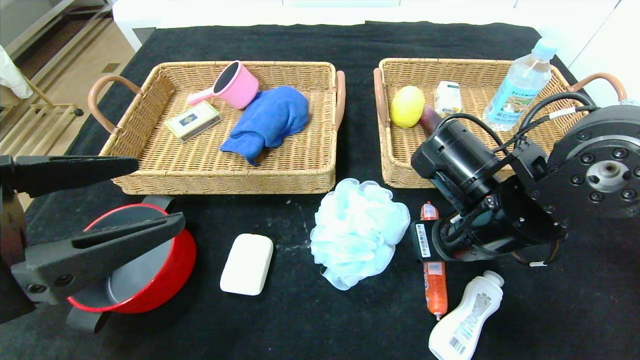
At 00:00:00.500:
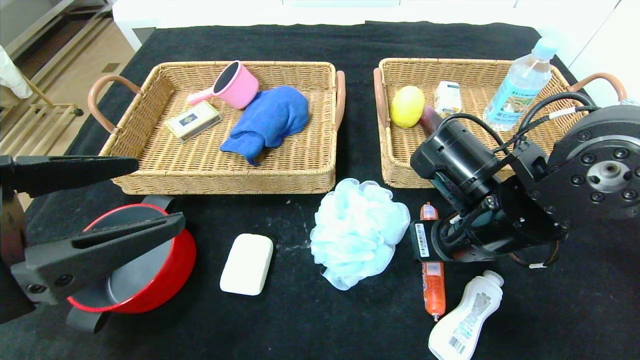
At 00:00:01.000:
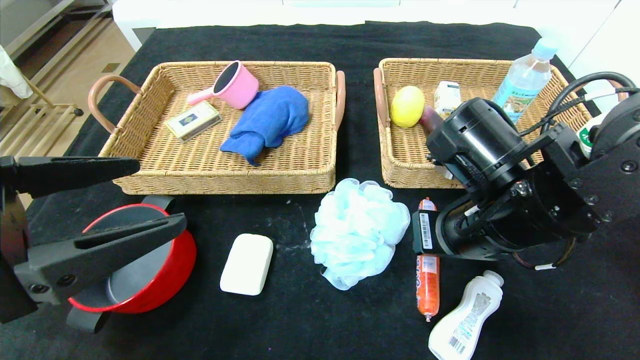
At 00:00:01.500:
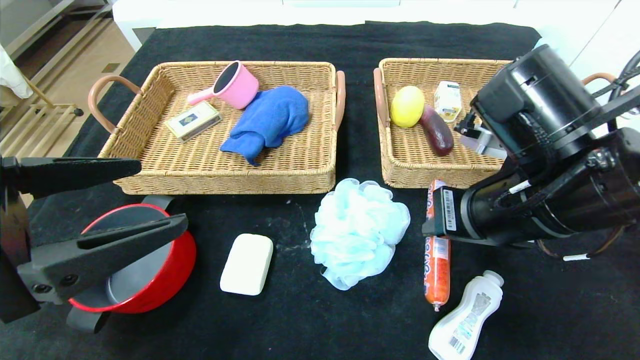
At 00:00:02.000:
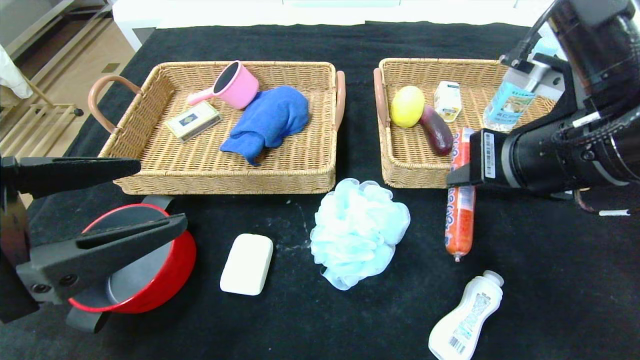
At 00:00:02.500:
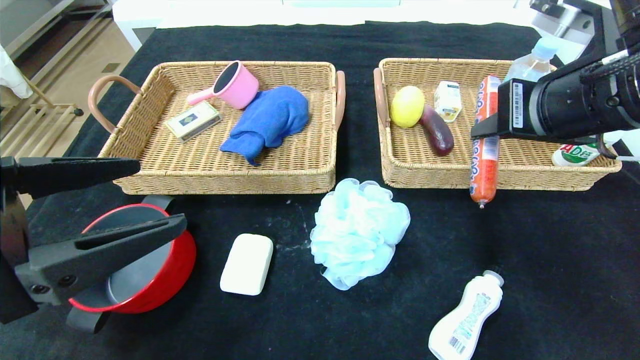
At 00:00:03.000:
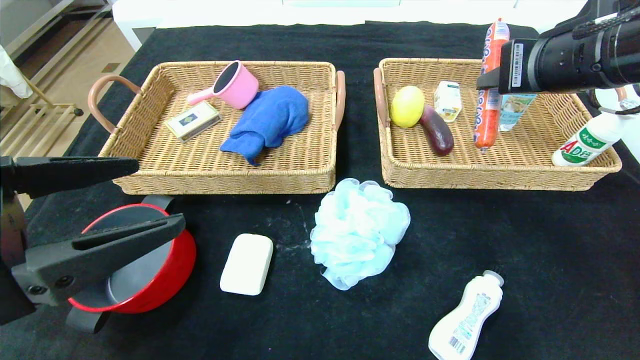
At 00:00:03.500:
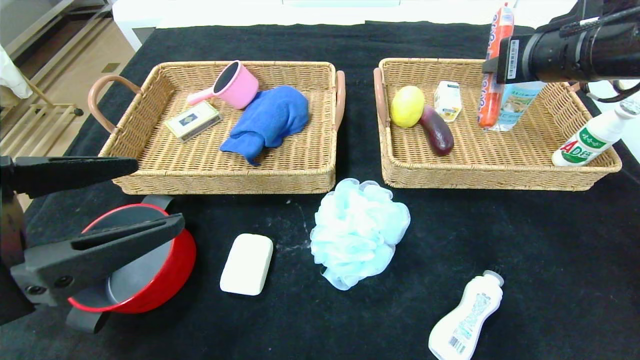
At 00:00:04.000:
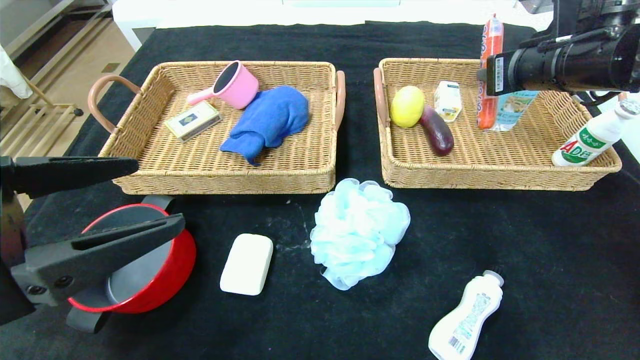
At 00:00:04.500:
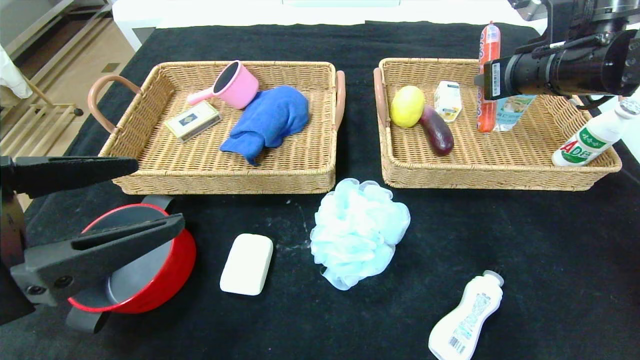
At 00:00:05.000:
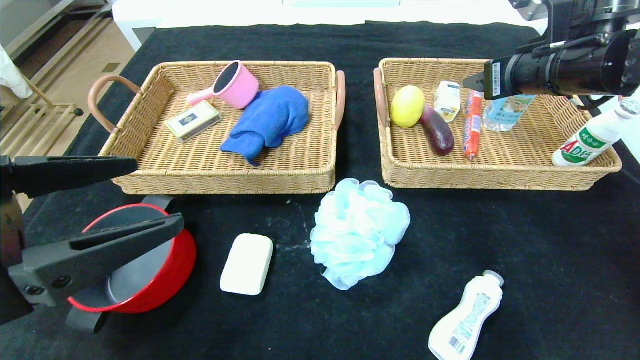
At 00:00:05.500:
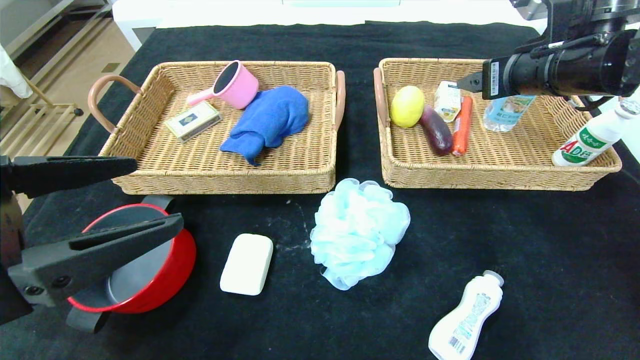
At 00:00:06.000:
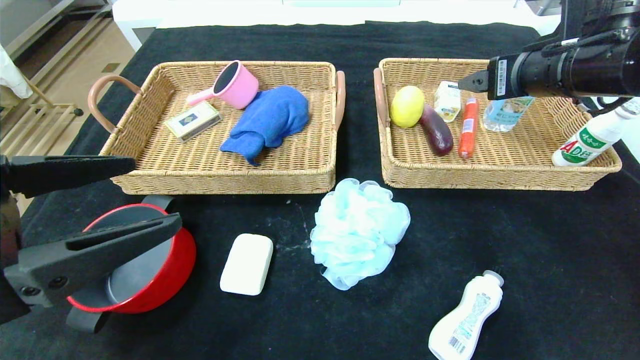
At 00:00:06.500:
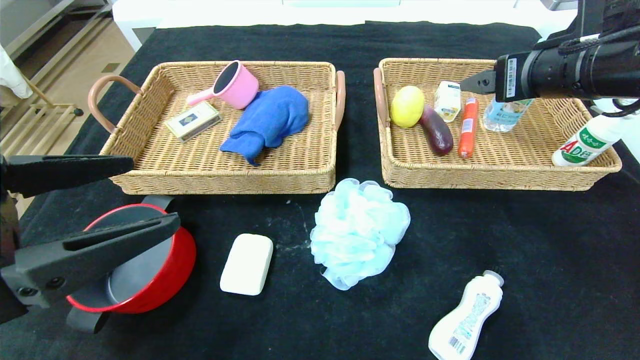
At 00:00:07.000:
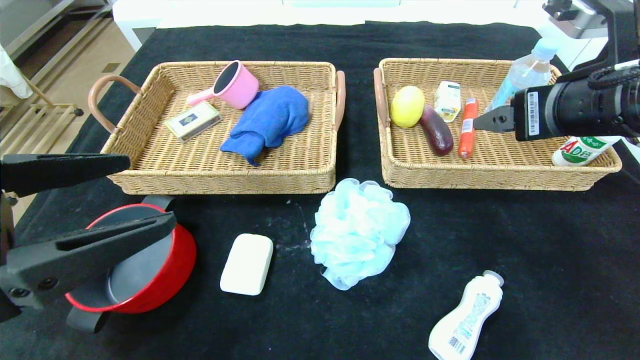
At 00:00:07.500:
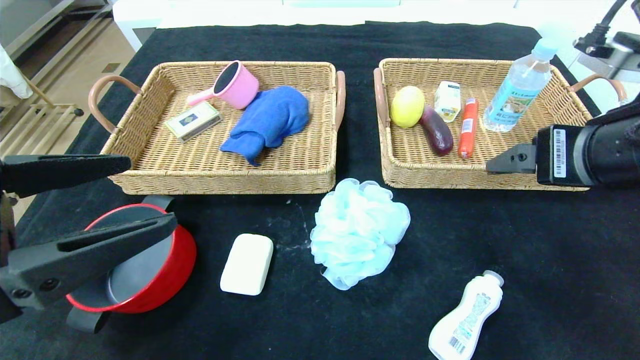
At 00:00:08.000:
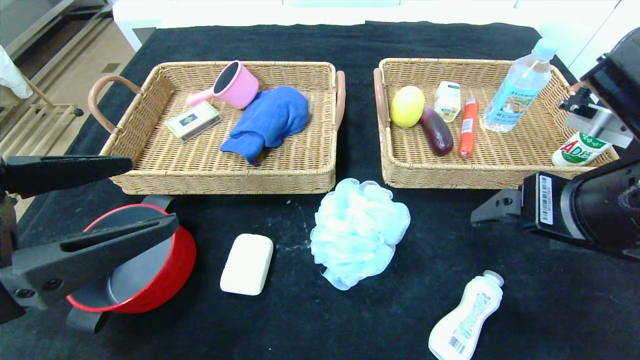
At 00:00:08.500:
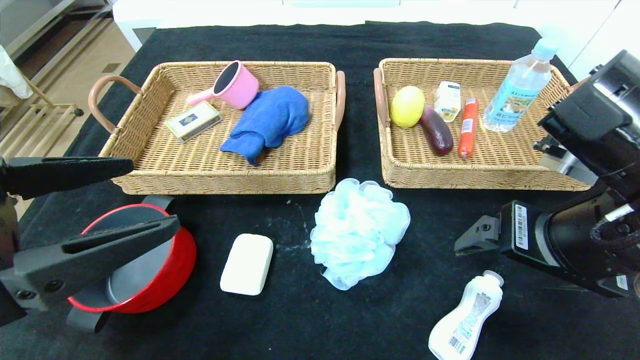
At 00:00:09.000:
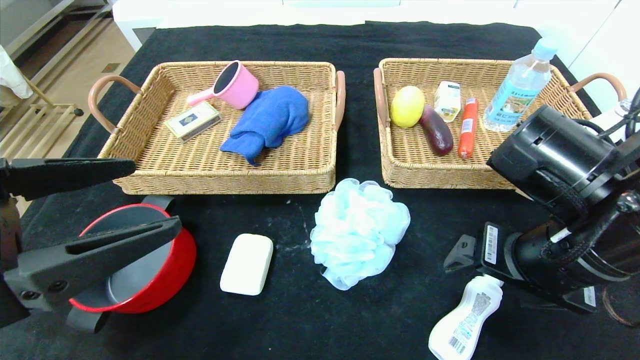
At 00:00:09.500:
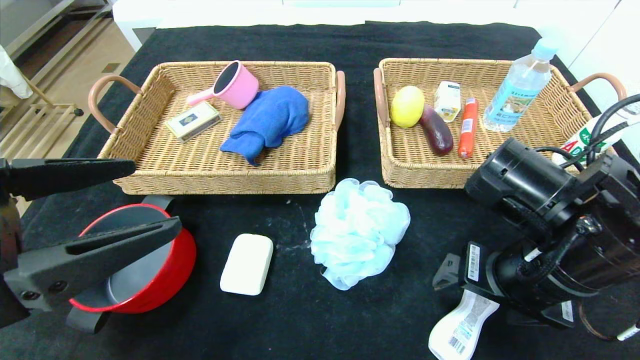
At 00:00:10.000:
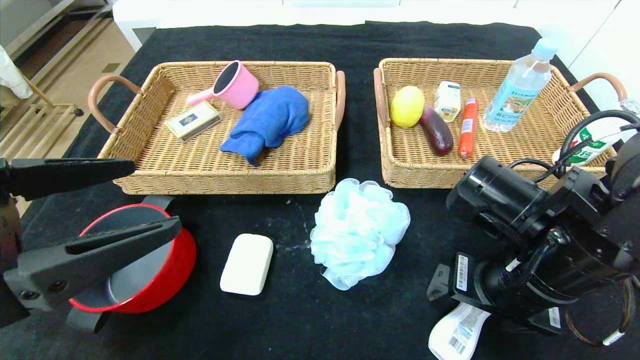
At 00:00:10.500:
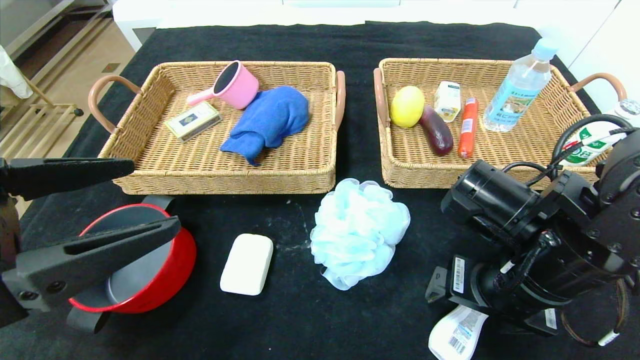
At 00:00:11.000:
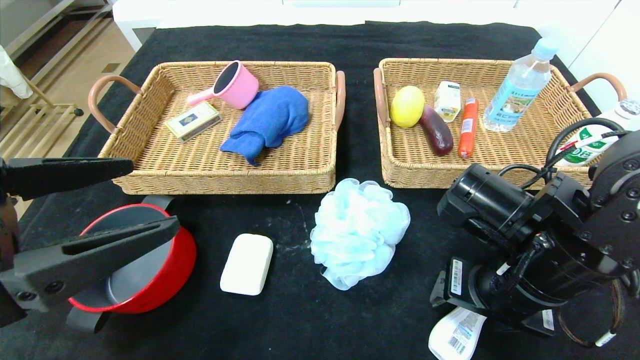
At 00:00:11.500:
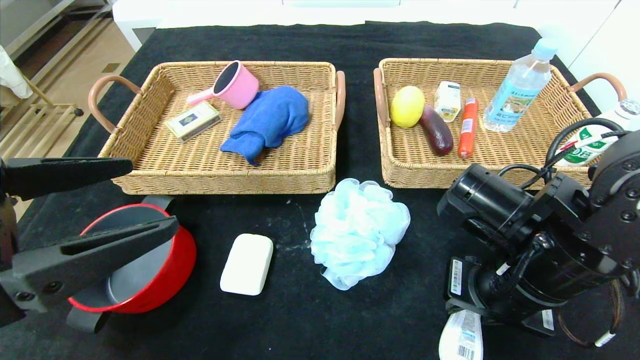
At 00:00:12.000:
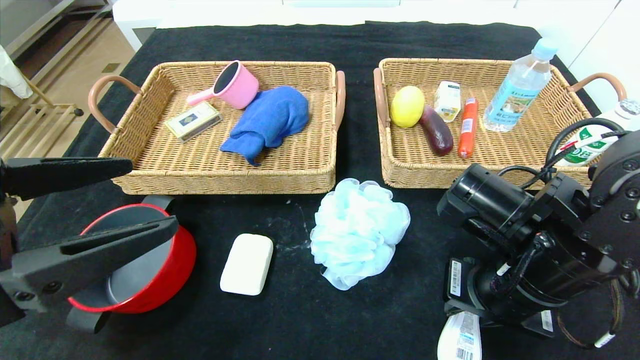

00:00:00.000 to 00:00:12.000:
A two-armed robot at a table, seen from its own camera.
Step, 00:00:00.000 to 00:00:04.500: Grasp the sausage and put it in the right basket.
00:00:00.000 to 00:00:02.000: The right gripper travels upward by some 10 cm.
00:00:02.000 to 00:00:04.000: The right gripper shifts roughly 15 cm forward and to the right.
00:00:04.000 to 00:00:06.000: The right gripper opens up.
00:00:06.000 to 00:00:08.000: The right gripper is displaced backward by roughly 15 cm.
00:00:08.000 to 00:00:10.000: The right gripper is displaced downward by about 10 cm.
00:00:10.000 to 00:00:12.000: The right gripper closes its fingers.

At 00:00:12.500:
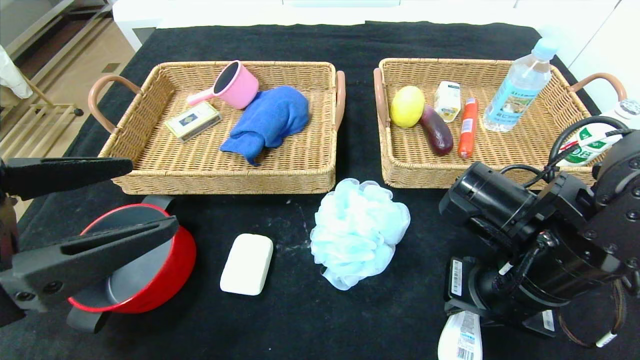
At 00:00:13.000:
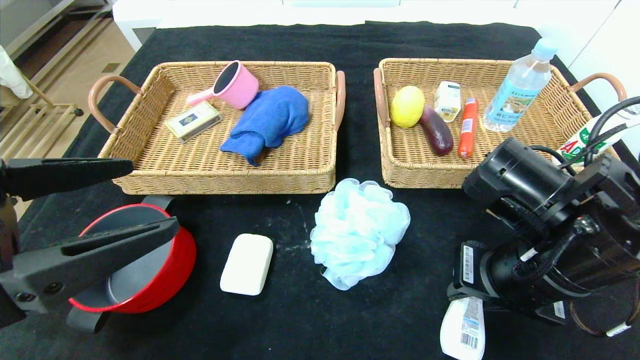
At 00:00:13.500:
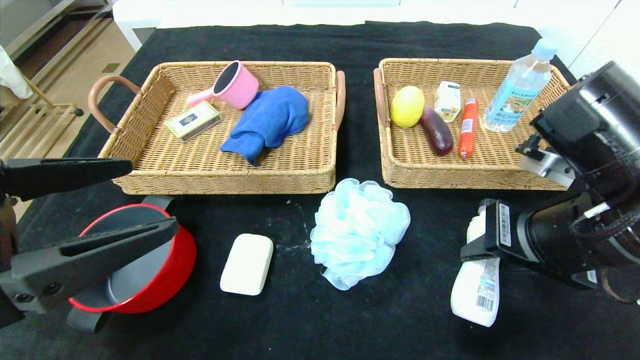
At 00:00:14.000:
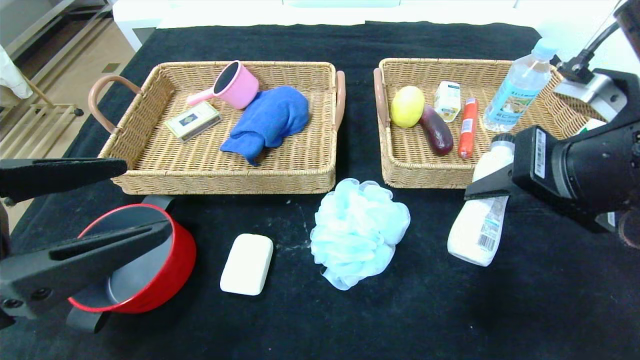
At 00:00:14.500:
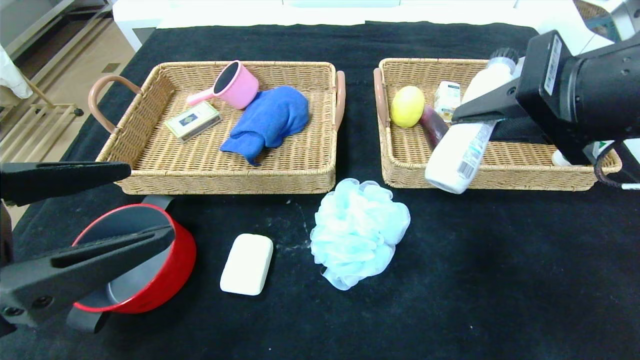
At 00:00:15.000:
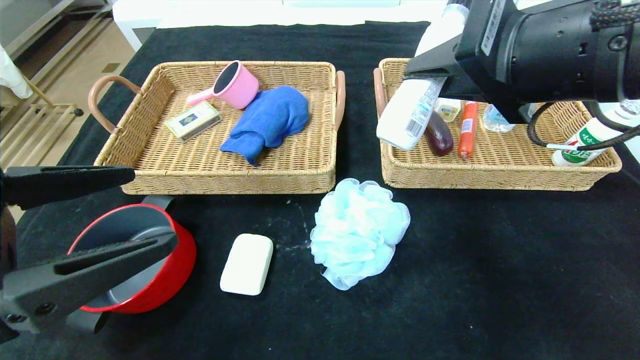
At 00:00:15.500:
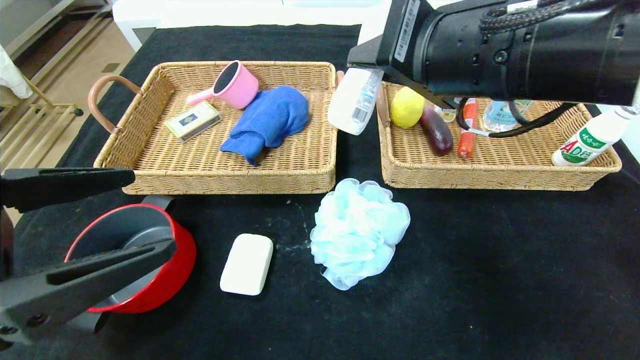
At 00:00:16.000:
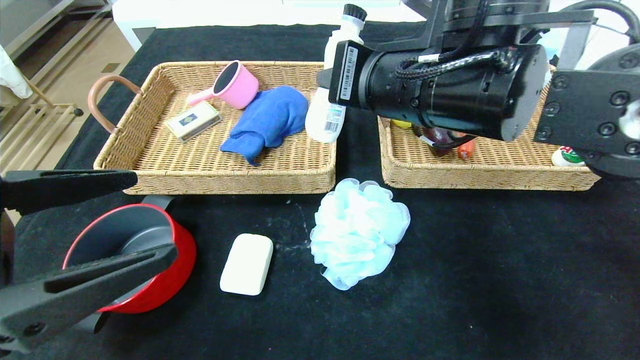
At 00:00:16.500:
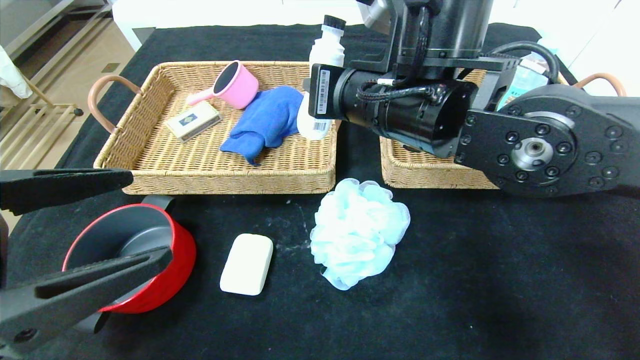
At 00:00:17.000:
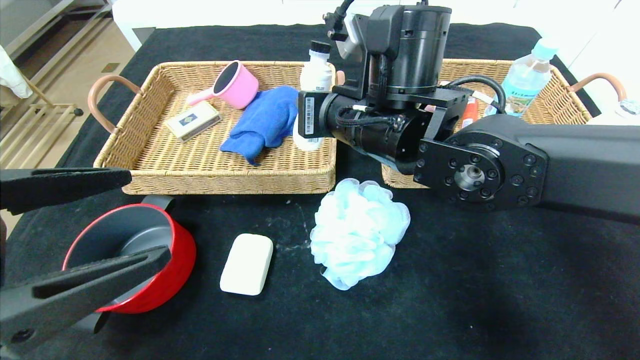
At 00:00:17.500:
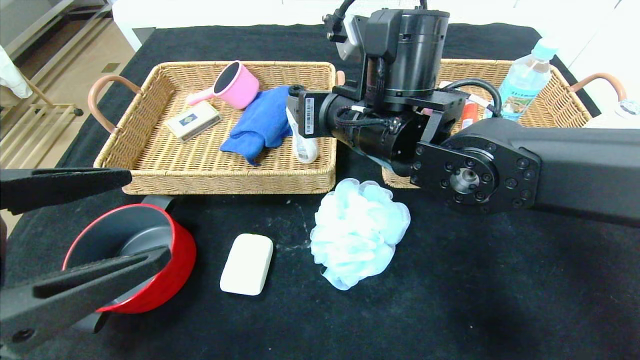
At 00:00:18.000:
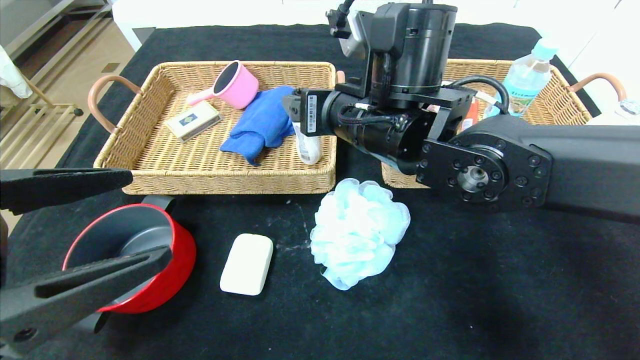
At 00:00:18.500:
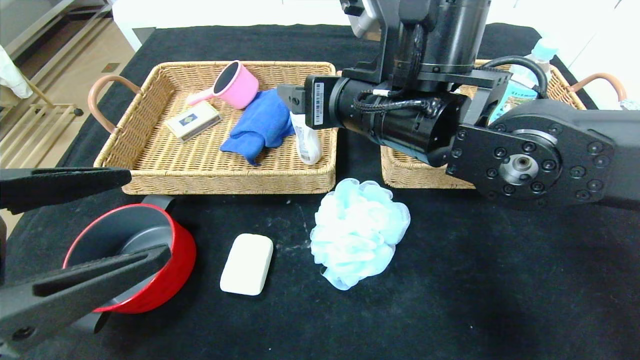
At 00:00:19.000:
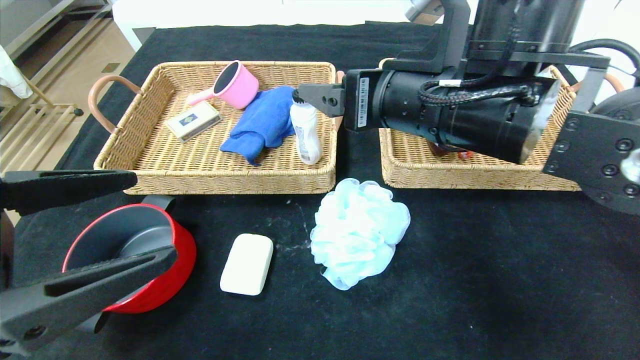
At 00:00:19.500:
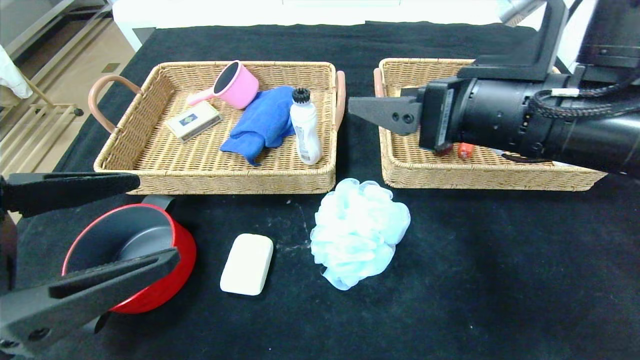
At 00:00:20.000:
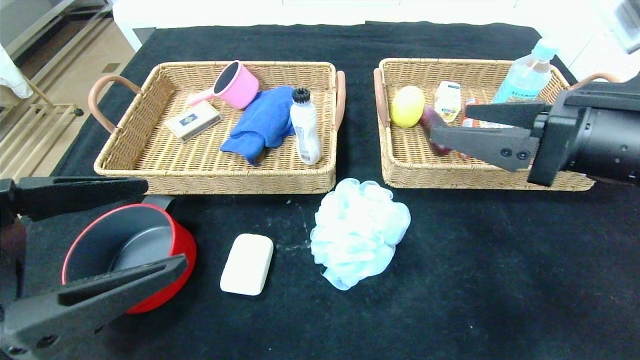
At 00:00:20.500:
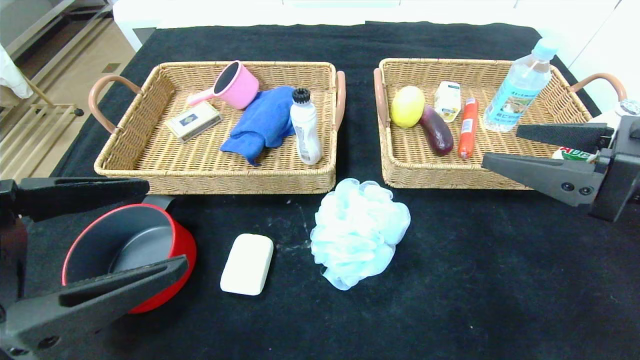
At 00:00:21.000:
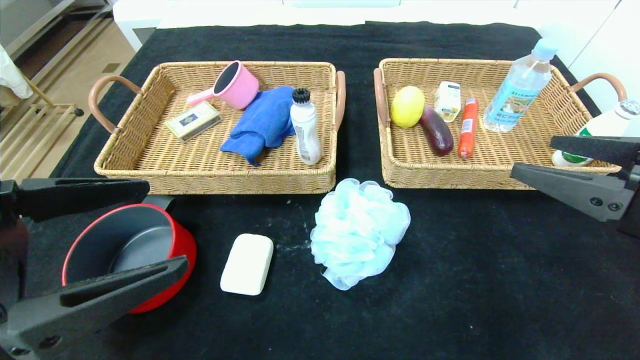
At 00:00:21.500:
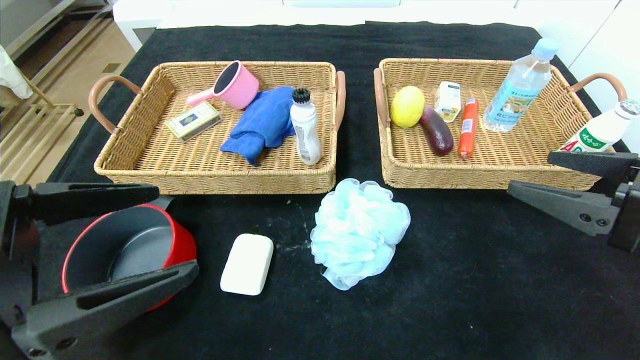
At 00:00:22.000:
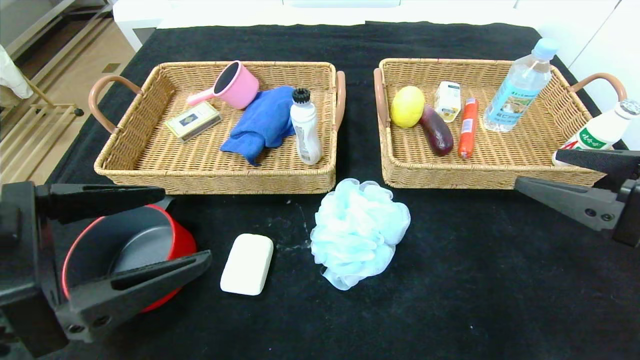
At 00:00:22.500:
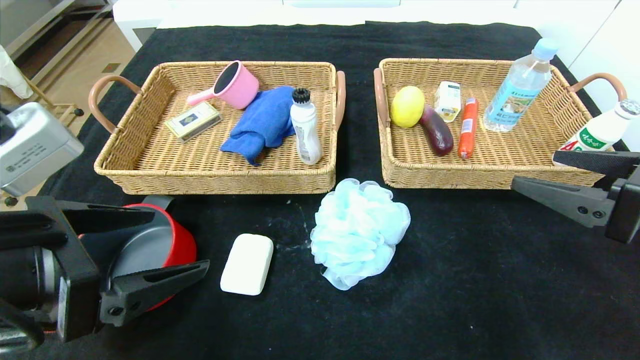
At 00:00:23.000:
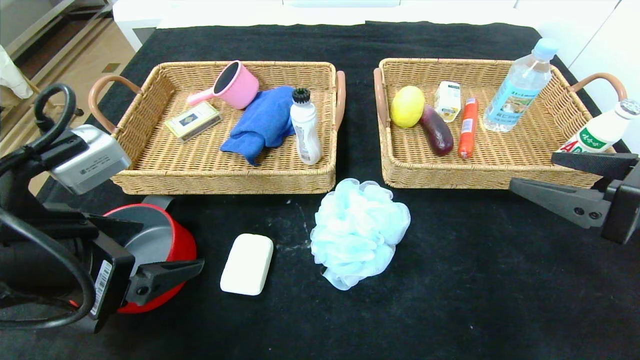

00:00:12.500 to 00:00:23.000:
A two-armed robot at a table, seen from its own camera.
00:00:12.500 to 00:00:14.500: The right gripper goes about 15 cm upward.
00:00:14.500 to 00:00:16.500: The right gripper is displaced to the left and forward by roughly 15 cm.
00:00:16.500 to 00:00:19.000: The right gripper shifts by approximately 5 cm, and opens up.
00:00:19.000 to 00:00:21.000: The right gripper travels to the right and backward by roughly 20 cm.
00:00:21.000 to 00:00:23.000: The left gripper moves some 5 cm.
